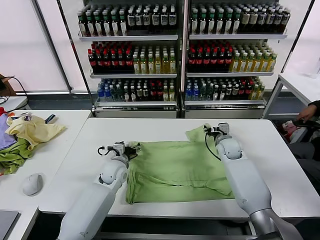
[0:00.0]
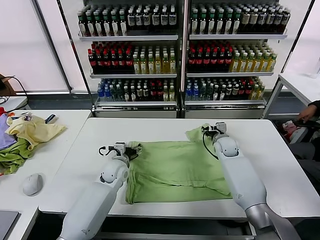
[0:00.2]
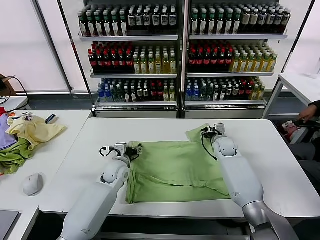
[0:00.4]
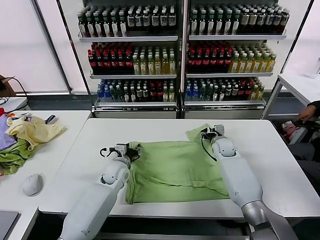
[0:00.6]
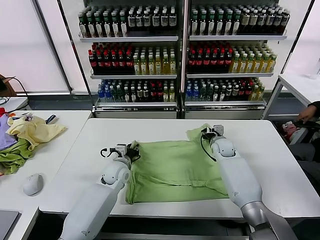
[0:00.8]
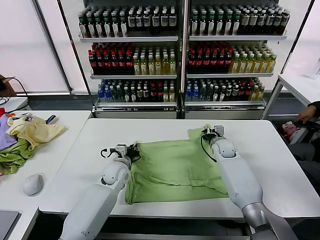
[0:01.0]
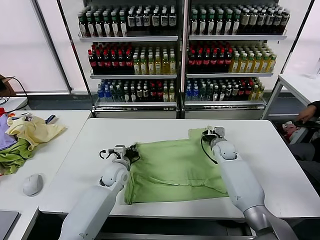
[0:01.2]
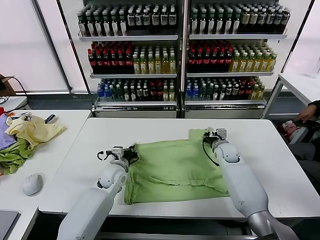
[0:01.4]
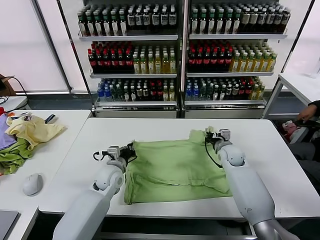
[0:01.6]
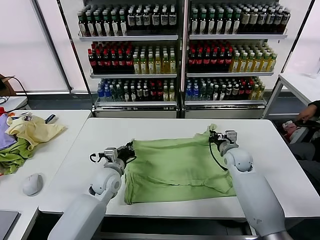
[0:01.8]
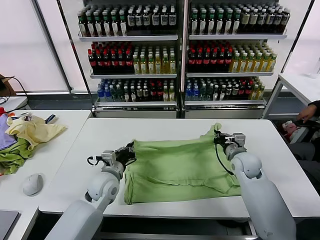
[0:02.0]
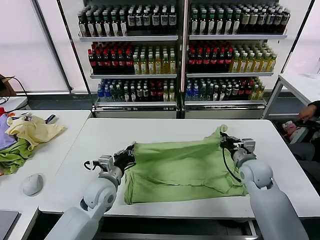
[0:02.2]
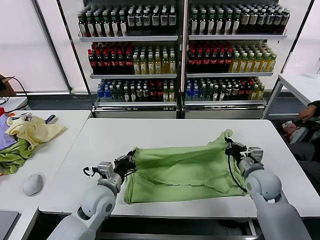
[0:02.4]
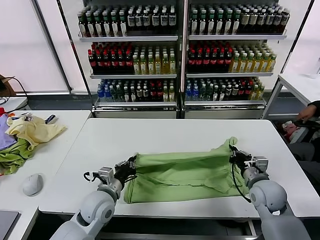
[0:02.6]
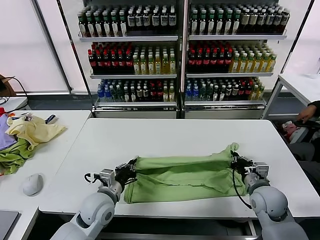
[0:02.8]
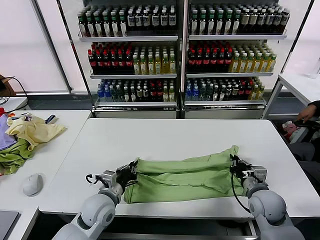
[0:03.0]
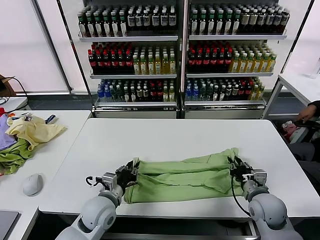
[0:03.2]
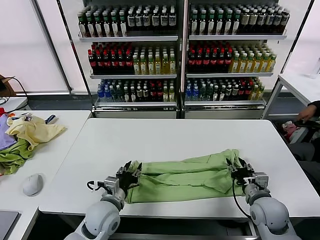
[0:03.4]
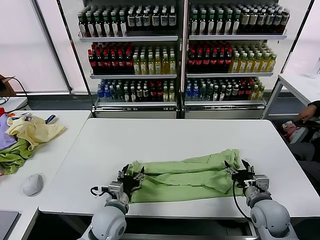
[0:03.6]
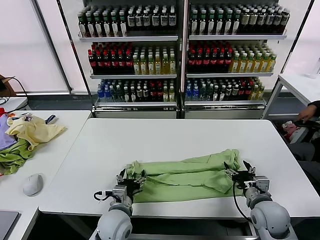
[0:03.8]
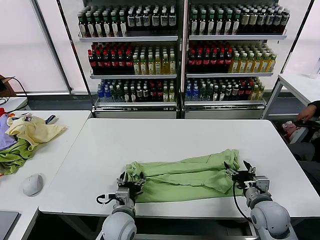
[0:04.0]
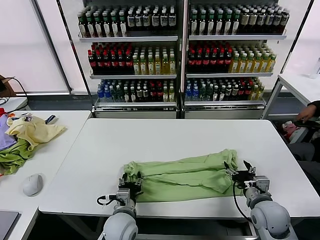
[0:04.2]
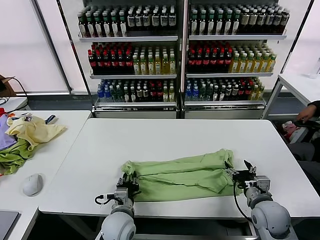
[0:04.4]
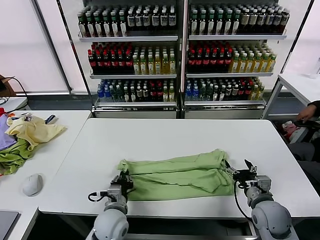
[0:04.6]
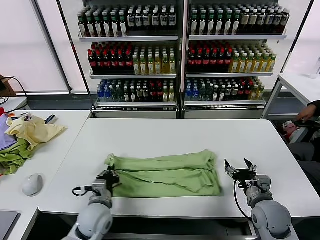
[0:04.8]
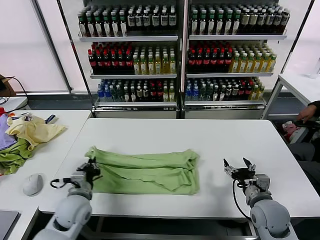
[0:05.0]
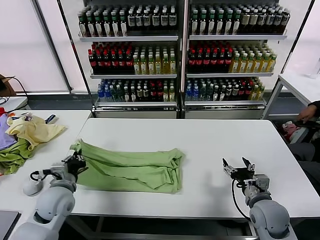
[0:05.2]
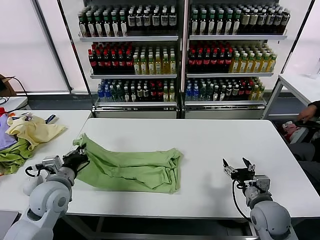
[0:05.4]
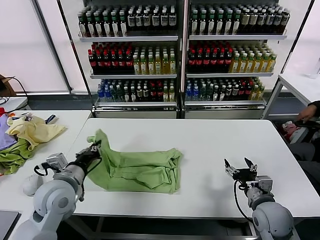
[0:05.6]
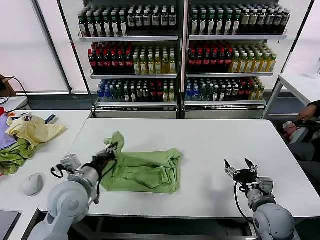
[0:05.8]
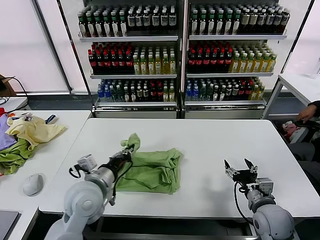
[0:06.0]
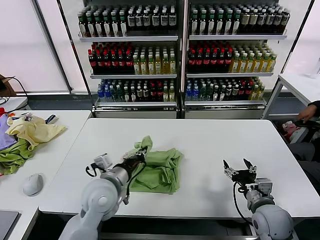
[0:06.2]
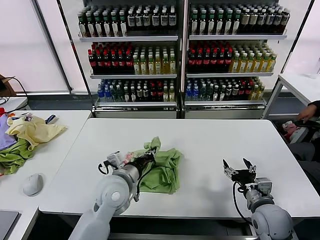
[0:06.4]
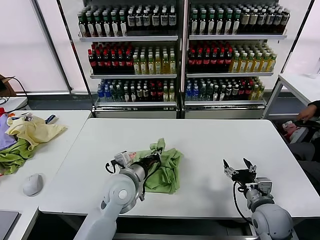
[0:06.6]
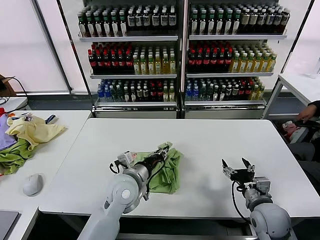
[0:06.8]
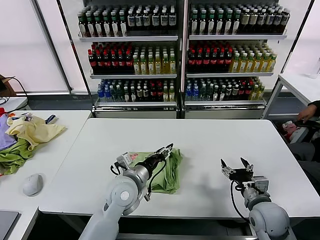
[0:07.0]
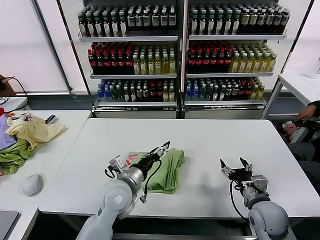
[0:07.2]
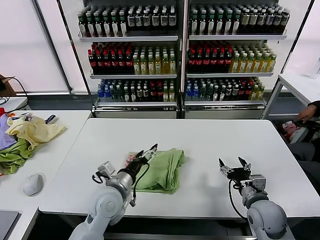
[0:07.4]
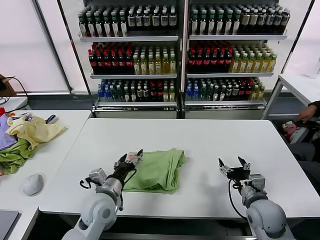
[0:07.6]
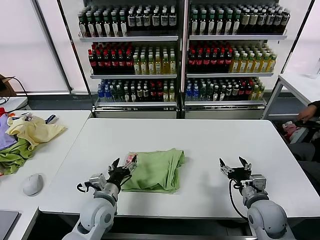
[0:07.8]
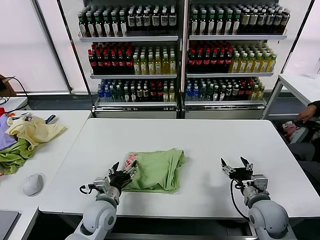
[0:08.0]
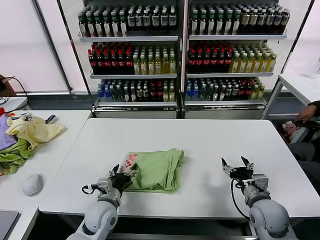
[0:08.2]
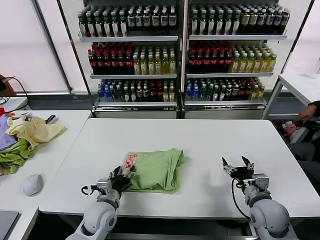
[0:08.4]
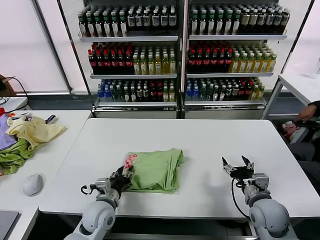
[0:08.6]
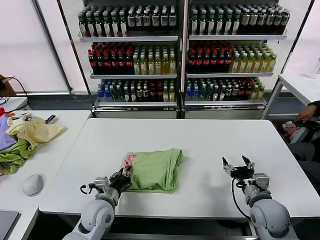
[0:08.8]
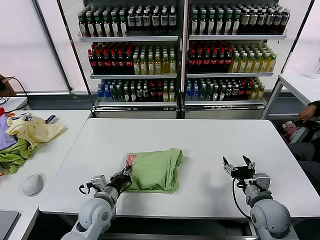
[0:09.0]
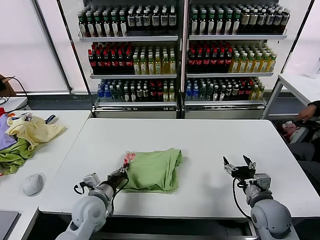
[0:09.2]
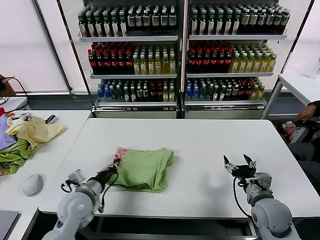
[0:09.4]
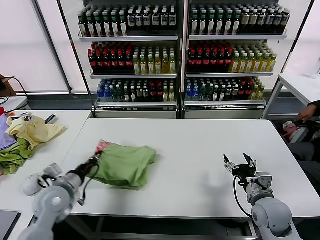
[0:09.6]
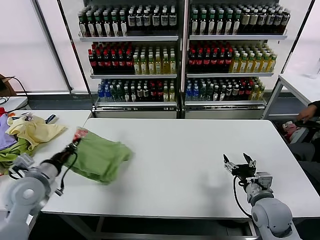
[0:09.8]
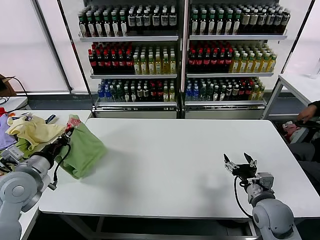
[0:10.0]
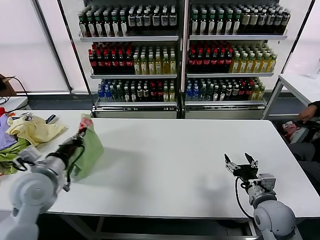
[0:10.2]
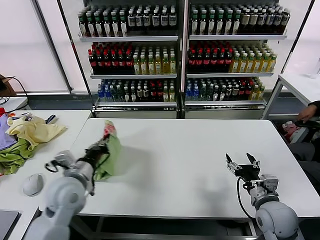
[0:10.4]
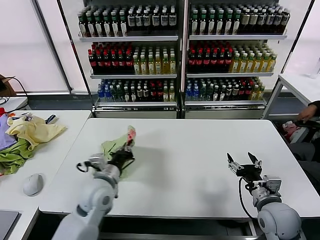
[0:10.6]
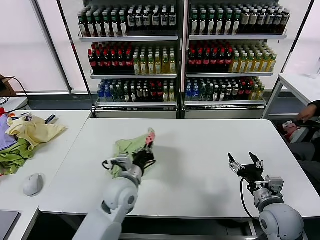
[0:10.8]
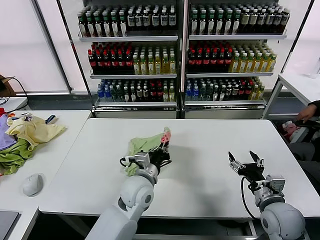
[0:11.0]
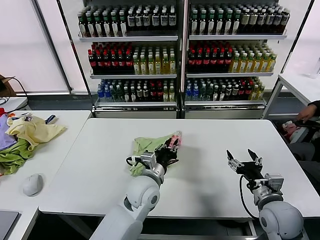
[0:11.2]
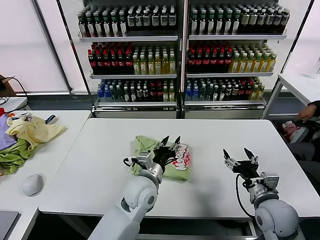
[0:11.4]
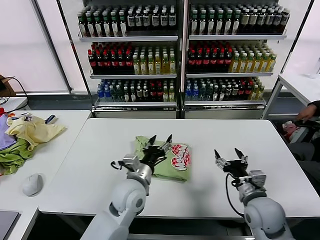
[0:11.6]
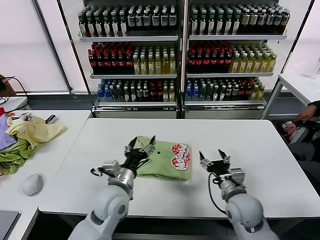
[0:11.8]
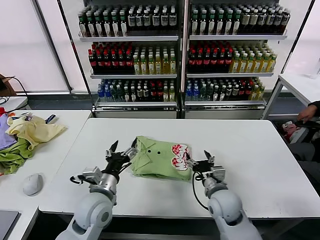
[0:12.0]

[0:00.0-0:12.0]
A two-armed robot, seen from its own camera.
Task of the whole recording: fold and organize the clothes.
Step, 0:01.4 to 0:03.4: use both grippers to drag the upper edge of the fabric backward and fold it over the lower edge.
Step, 0:03.6 to 0:04.6: use the left gripper to clamp the left edge of the fabric.
Step, 0:04.8 to 0:07.0: use the left gripper to drag the left edge of the fabric to the left and folds it over the right edge.
Step, 0:07.2 to 0:11.2: Flip the folded clothes over with left gripper.
0:00.0 to 0:01.6: The left gripper closes its fingers, while the right gripper closes up.
0:01.6 to 0:03.0: The left gripper goes about 10 cm backward. The right gripper shifts roughly 20 cm backward.
0:03.0 to 0:04.4: The left gripper shifts about 5 cm to the right, and opens and closes again, while the right gripper opens its fingers.
0:04.4 to 0:06.0: The left gripper goes some 15 cm upward and to the left, and closes.
0:06.0 to 0:07.6: The left gripper is displaced downward by approximately 10 cm, reaches some 10 cm to the right, then returns, and opens.
0:07.6 to 0:09.0: The left gripper moves roughly 5 cm, and closes.
0:09.0 to 0:10.4: The left gripper is displaced upward and to the left by some 15 cm.
0:10.4 to 0:12.0: The right gripper moves to the left and forward, about 15 cm; the left gripper travels to the right and downward by roughly 10 cm, and opens.

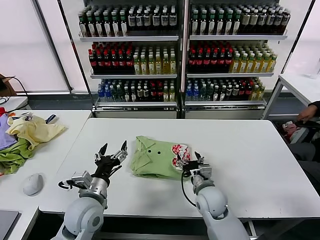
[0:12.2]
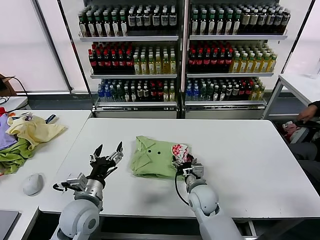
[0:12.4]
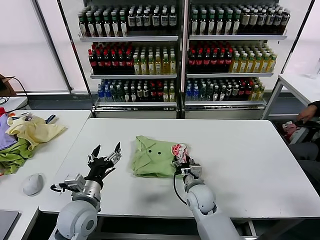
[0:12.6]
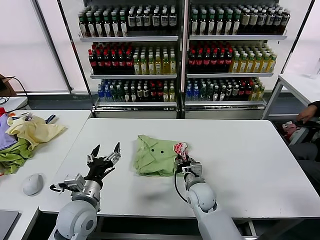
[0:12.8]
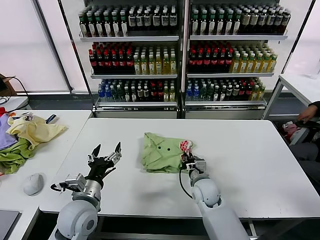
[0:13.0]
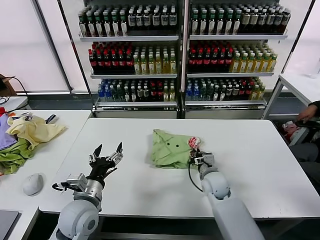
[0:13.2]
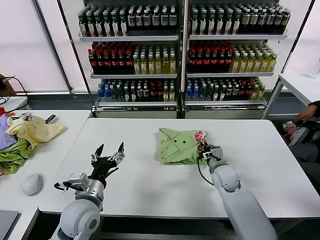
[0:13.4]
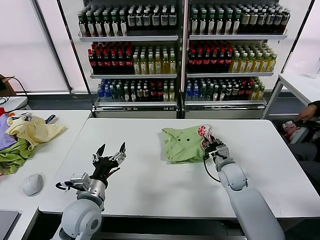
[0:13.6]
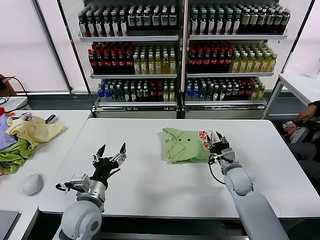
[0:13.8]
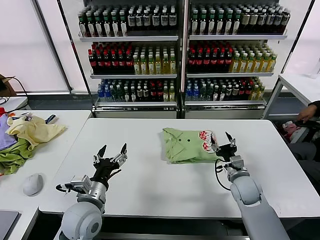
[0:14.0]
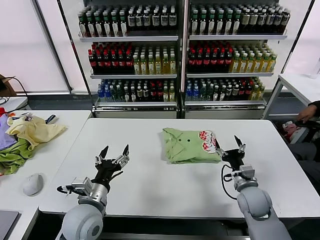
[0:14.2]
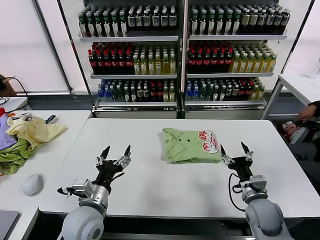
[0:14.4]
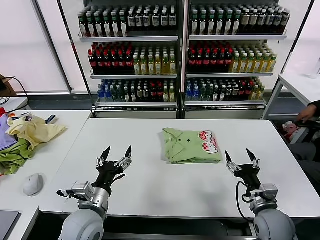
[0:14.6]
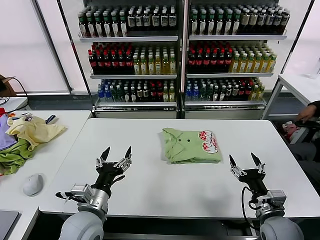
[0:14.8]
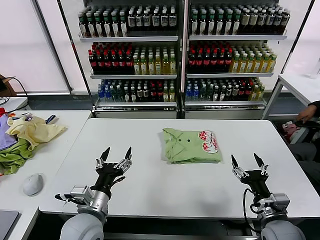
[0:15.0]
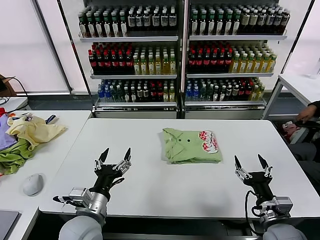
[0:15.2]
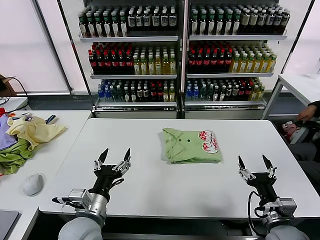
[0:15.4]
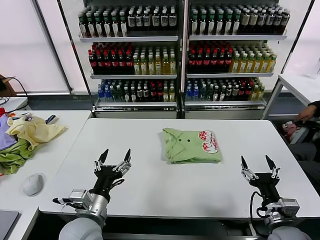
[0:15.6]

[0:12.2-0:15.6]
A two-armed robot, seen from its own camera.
Task of the whole recording: fold and organize the clothes.
Step, 0:12.2 to 0:13.8: Drag the clothes to the center of the table.
0:12.2 to 0:13.8: The right gripper moves to the right and forward, some 15 cm, and closes its fingers.
0:13.8 to 0:15.6: The right gripper travels backward by some 20 cm, and opens its fingers. Meanwhile the left gripper heads backward, covering roughly 5 cm.

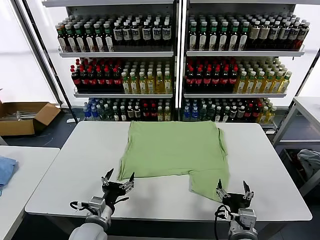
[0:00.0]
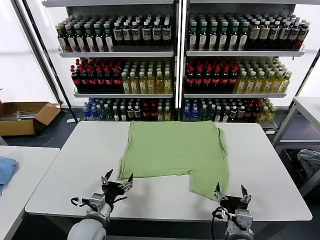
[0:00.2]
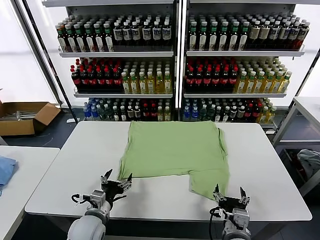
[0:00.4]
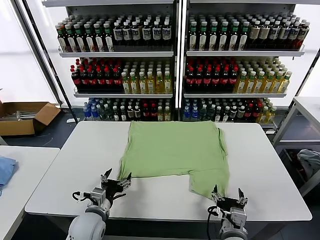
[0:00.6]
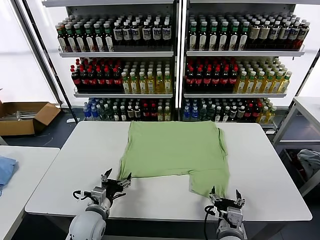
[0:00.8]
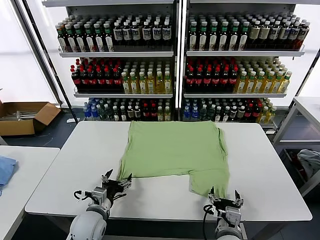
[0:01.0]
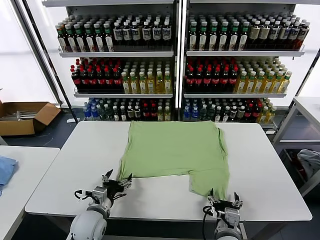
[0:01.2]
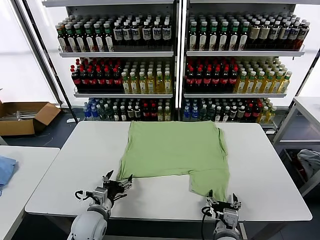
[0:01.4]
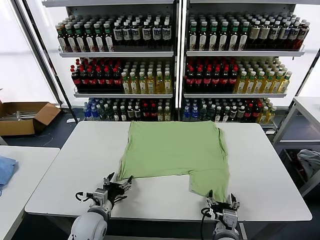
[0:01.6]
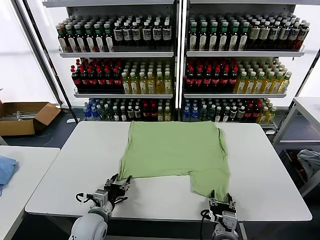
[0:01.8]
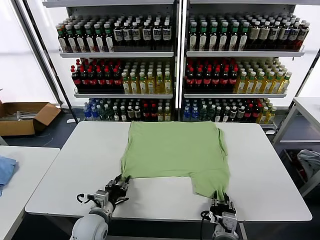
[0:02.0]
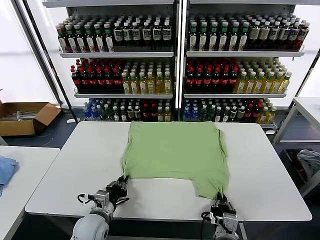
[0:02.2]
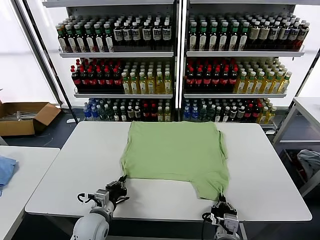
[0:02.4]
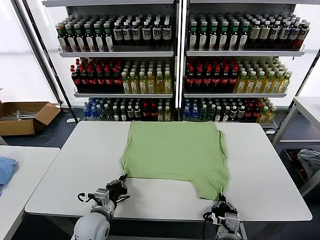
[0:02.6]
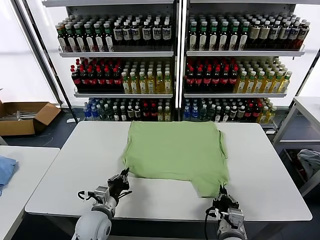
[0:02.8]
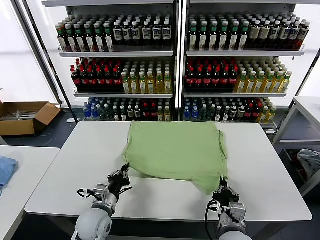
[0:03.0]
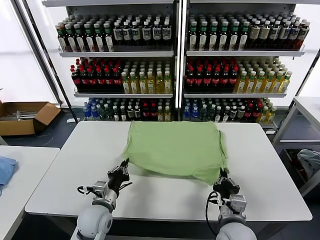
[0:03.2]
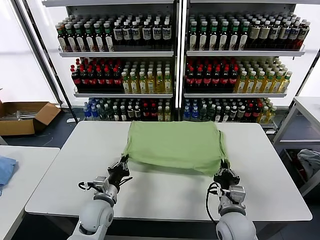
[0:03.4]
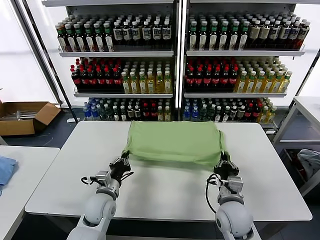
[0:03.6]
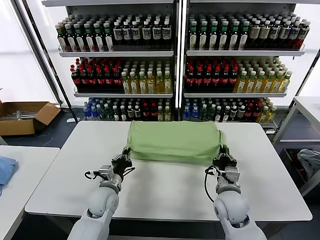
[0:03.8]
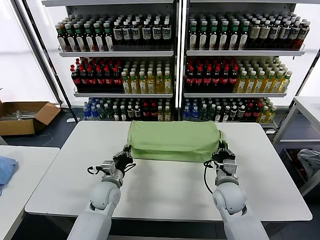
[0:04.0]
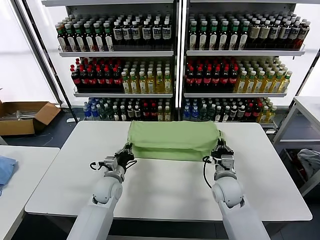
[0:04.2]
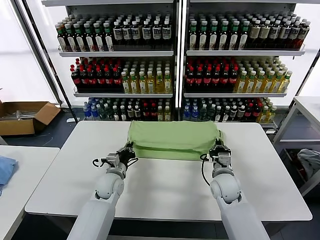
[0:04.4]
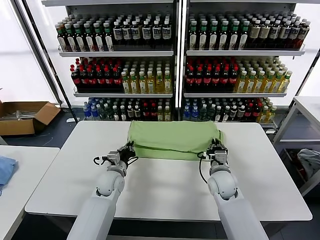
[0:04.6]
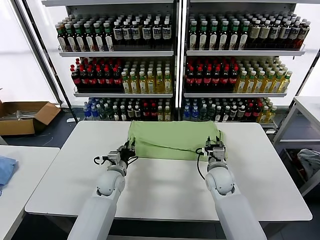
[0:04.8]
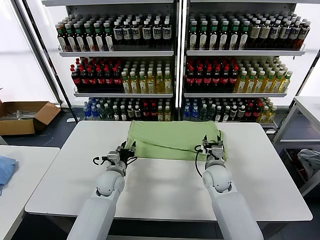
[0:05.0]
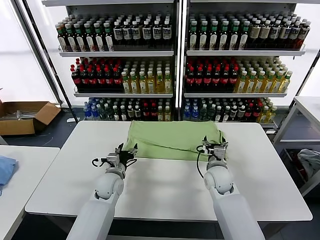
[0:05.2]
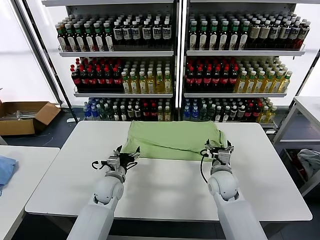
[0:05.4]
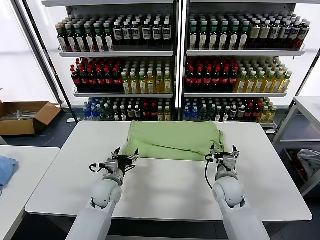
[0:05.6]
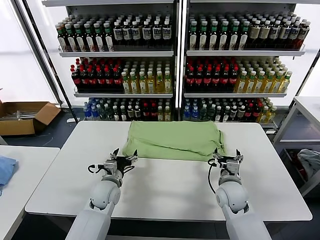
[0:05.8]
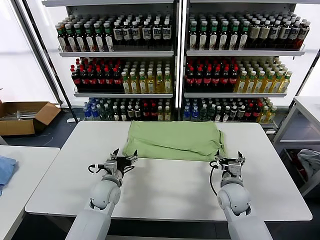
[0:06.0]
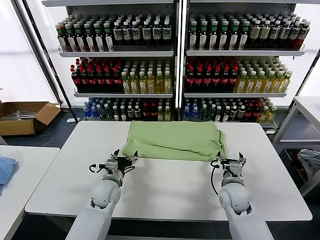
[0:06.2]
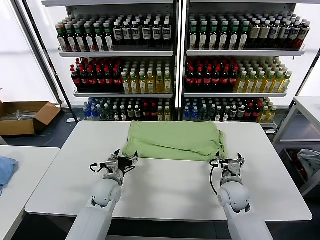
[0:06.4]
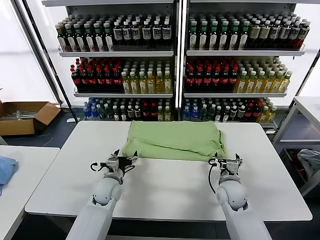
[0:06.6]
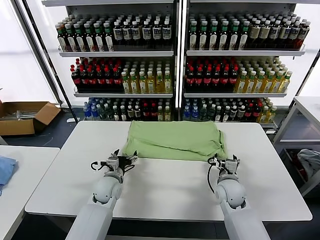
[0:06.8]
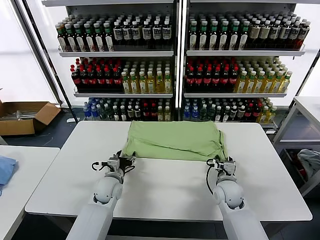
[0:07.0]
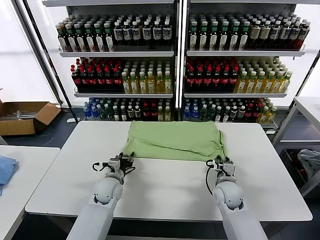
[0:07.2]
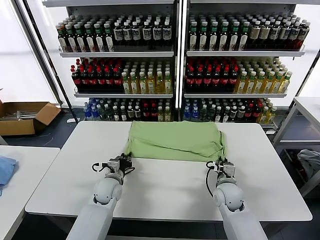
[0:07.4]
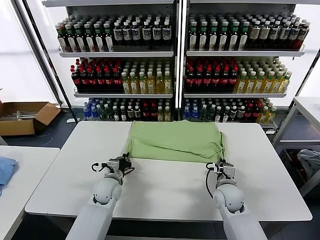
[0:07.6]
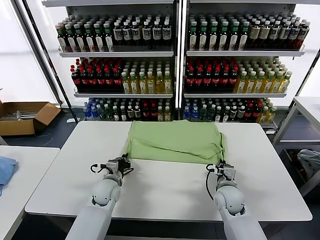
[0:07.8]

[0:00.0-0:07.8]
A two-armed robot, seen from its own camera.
Task of the whole recording: fold and organize the clothes.
Step, 0:00.0 to 0:02.4: use both grippers simultaneously to clamp the lower edge of the clothing fabric.
Step, 0:02.6 to 0:04.8: use both grippers to drag the lower edge of the fabric forward and fold it over the upper edge.
0:01.6 to 0:03.2: The left gripper closes, while the right gripper shifts some 5 cm forward, and closes.
0:03.2 to 0:04.6: The two grippers go roughly 15 cm forward.
0:04.6 to 0:06.2: The left gripper opens its fingers, while the right gripper goes roughly 5 cm backward, and opens up.
0:06.2 to 0:07.8: The left gripper closes up; the right gripper closes up.
